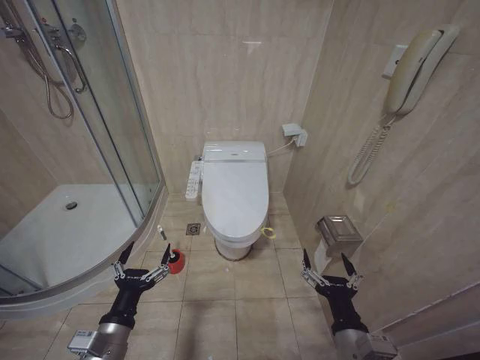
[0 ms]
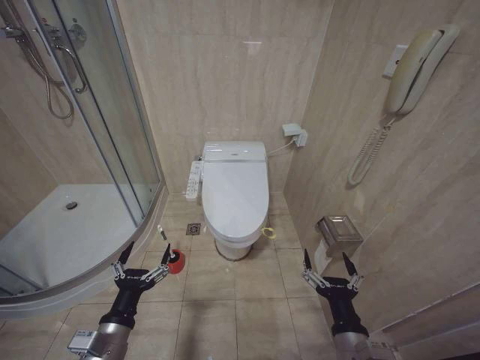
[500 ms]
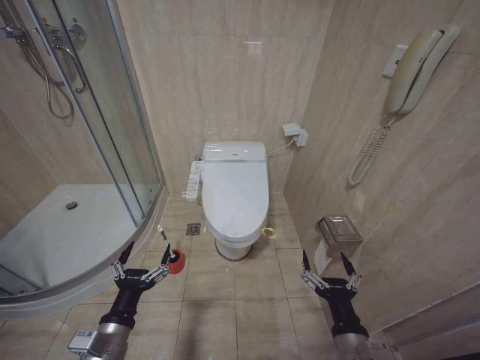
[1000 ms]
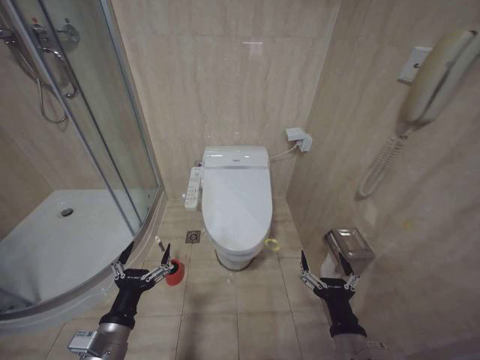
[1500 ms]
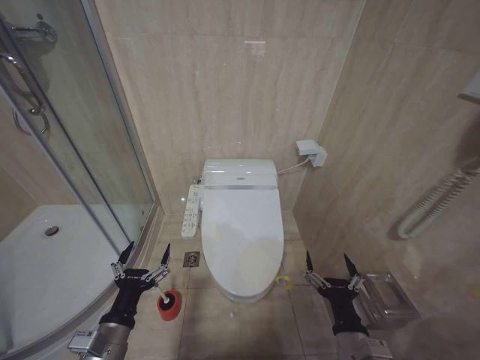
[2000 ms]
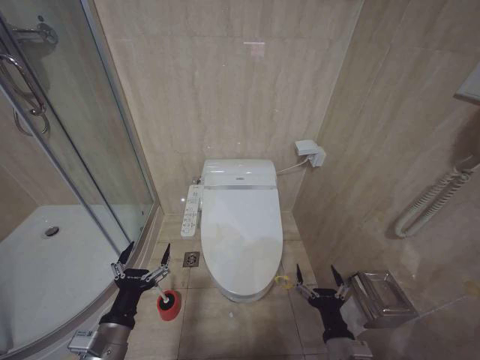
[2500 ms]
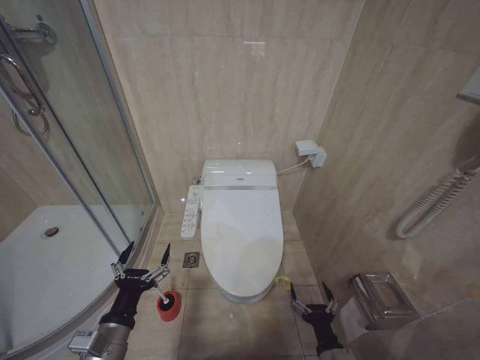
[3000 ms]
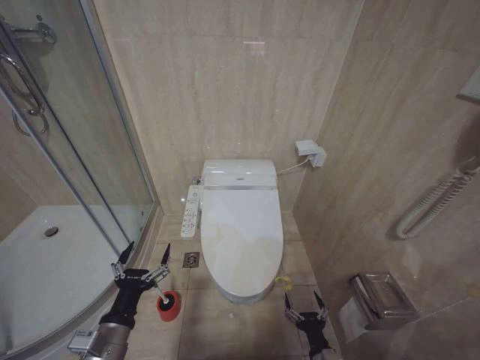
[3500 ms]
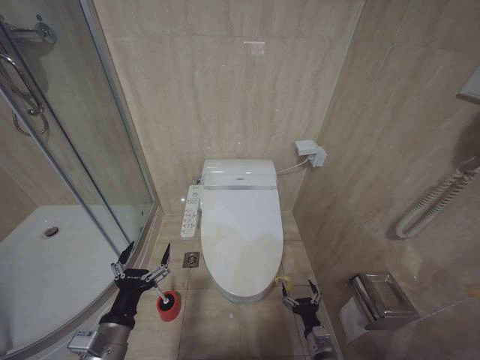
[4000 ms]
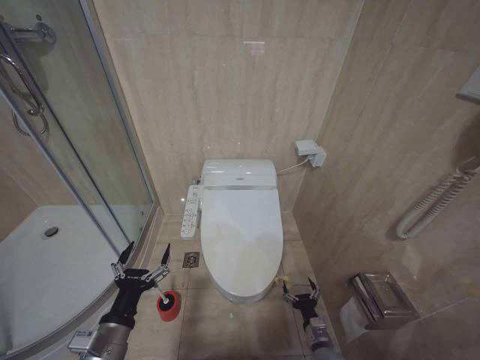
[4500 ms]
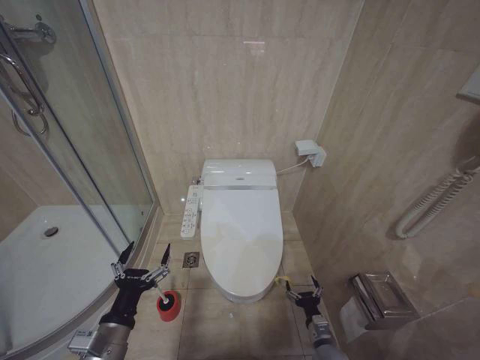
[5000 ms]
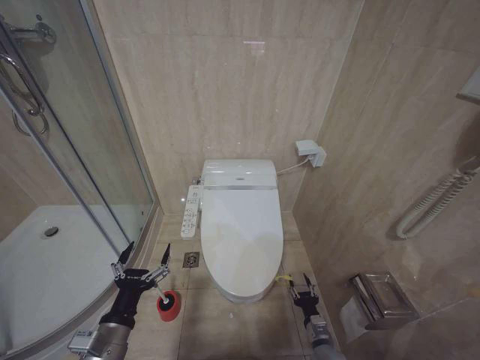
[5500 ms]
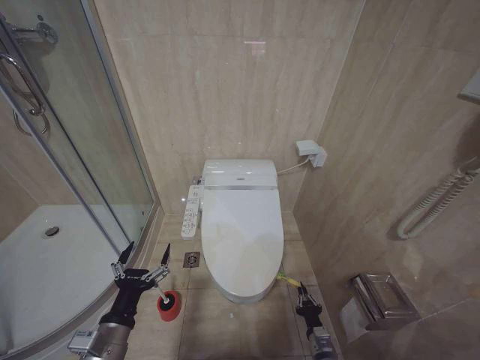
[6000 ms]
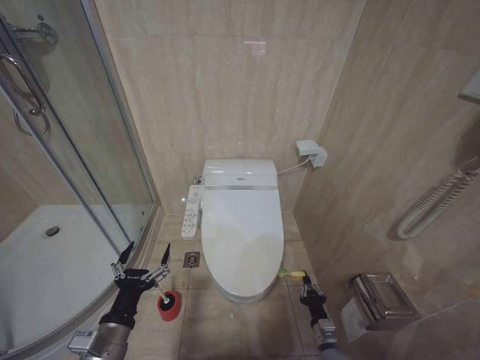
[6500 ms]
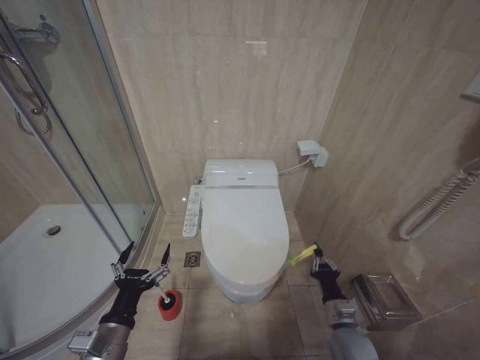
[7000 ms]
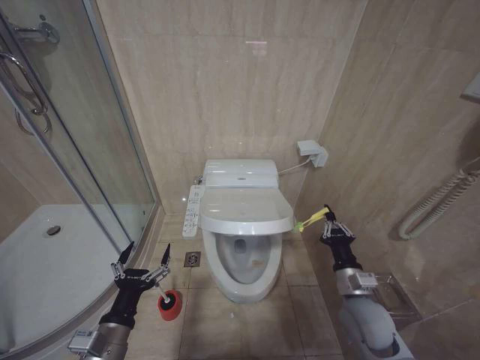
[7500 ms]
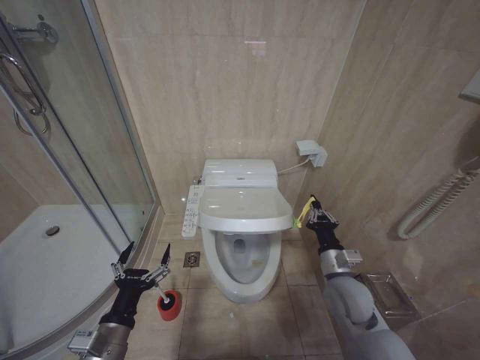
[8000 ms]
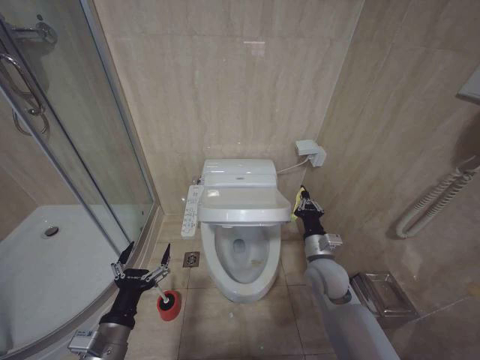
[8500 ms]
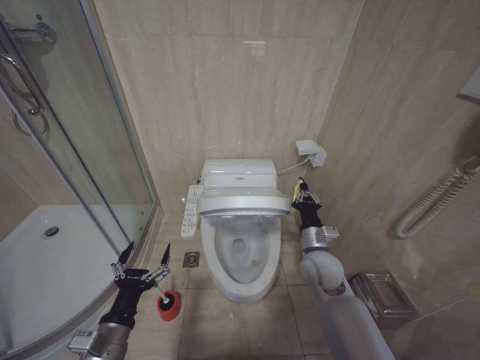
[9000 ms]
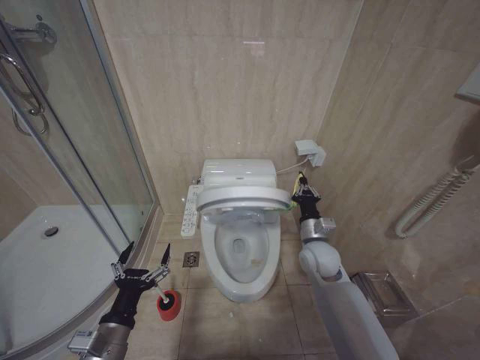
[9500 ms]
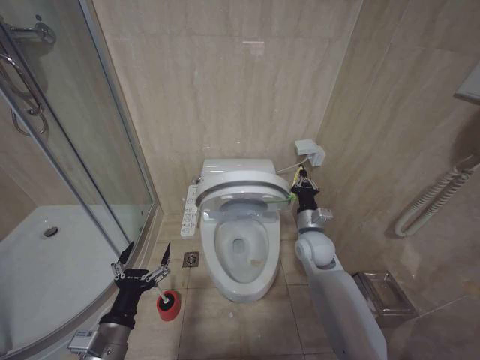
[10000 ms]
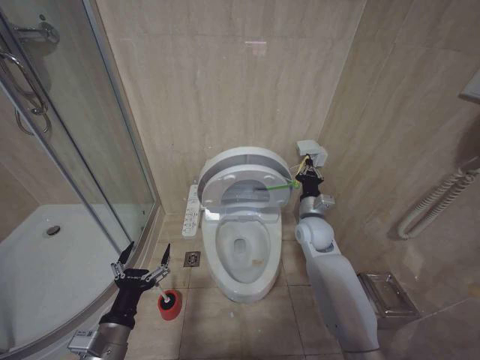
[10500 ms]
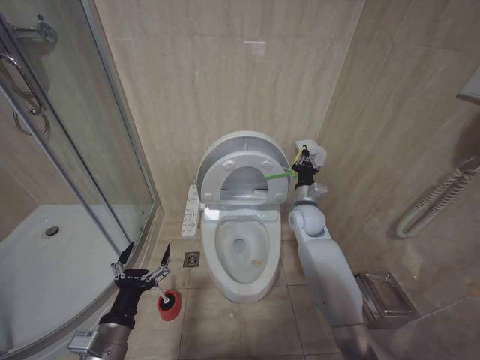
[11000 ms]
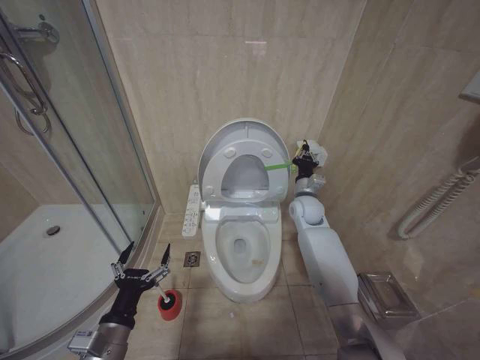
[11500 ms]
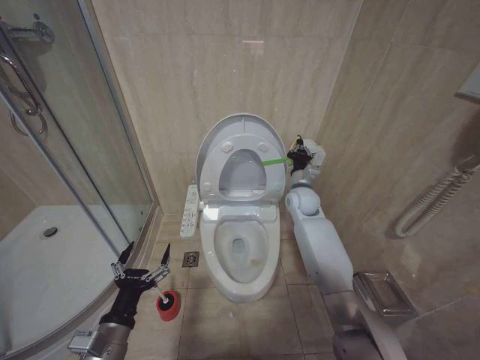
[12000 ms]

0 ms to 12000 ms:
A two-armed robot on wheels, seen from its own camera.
Task of the whole recording: Open the toilet lid, clean the toilet bowl with a toilet brush, close the toilet lid, and flush.
2000 ms to 4000 ms: The right gripper is displaced downward by about 20 cm.
6000 ms to 8000 ms: The right gripper heads upward, covering approximately 25 cm.
8000 ms to 10000 ms: The right gripper moves forward, approximately 10 cm.
10000 ms to 12000 ms: The right gripper goes about 15 cm forward and upward.

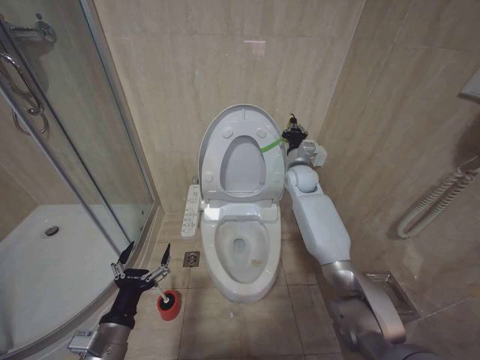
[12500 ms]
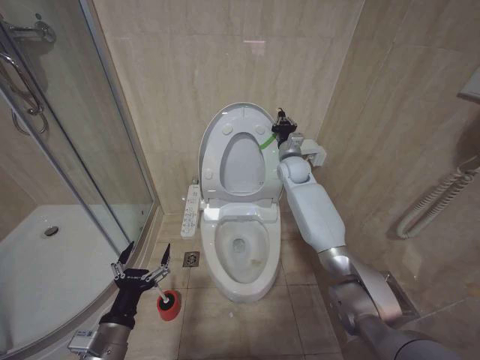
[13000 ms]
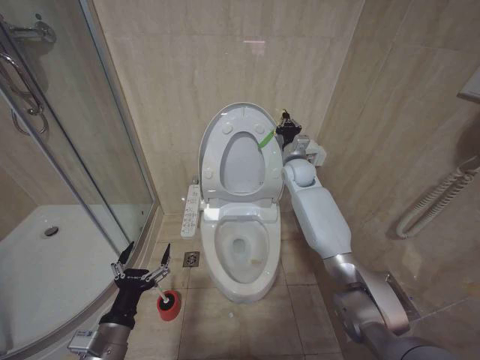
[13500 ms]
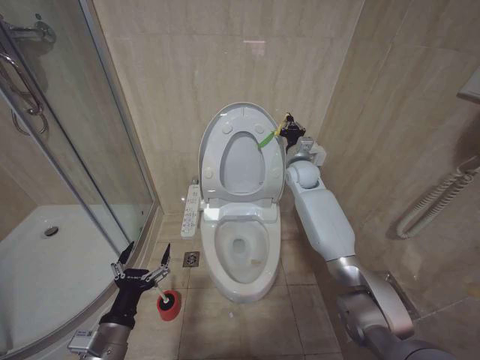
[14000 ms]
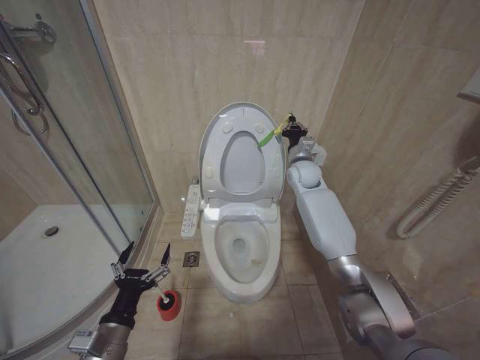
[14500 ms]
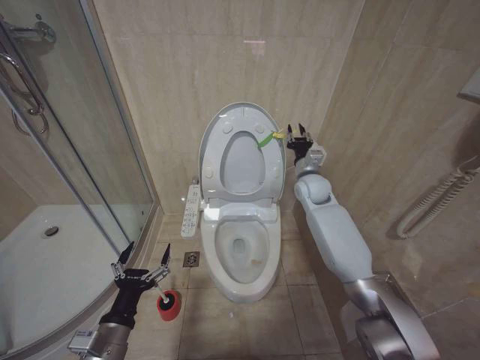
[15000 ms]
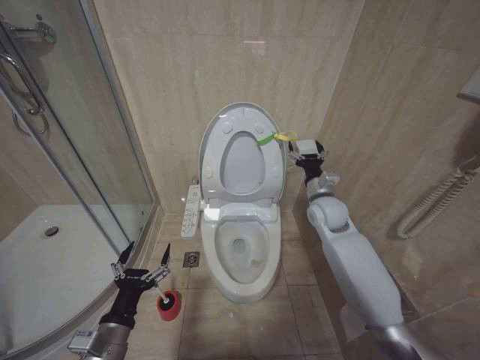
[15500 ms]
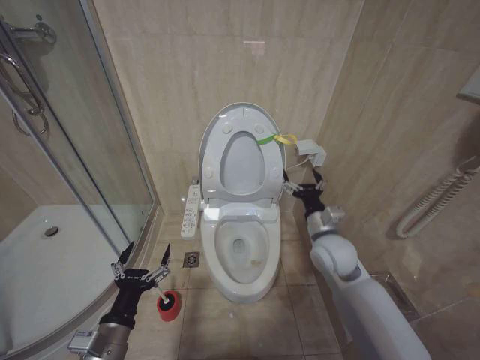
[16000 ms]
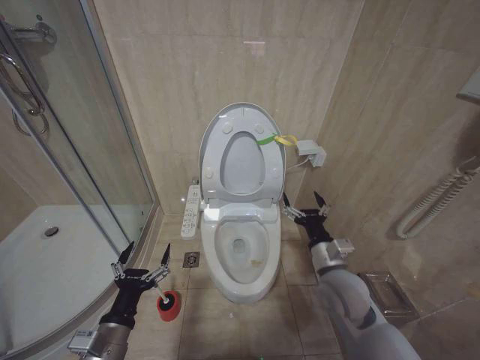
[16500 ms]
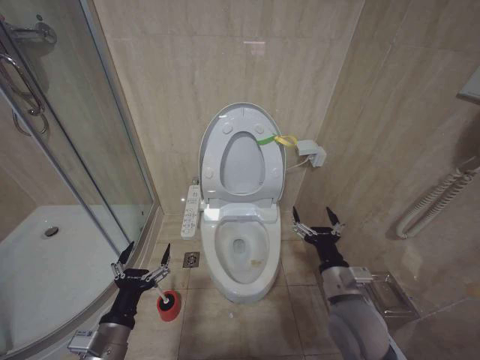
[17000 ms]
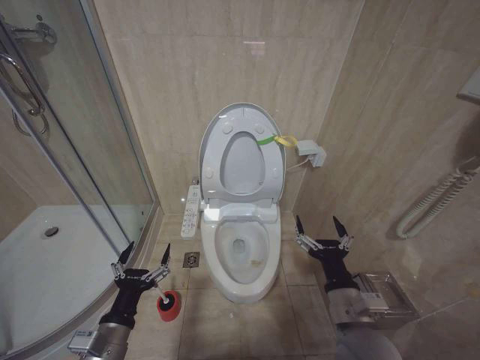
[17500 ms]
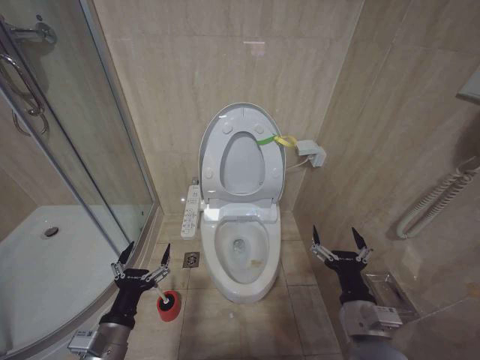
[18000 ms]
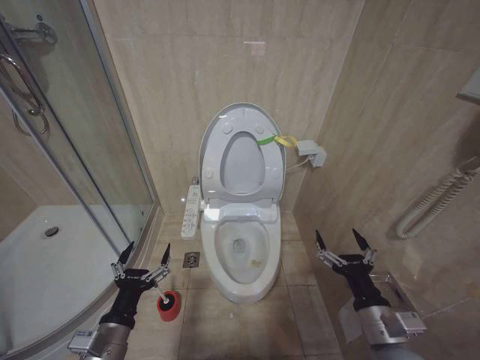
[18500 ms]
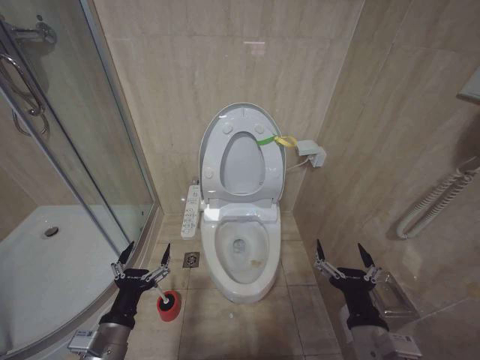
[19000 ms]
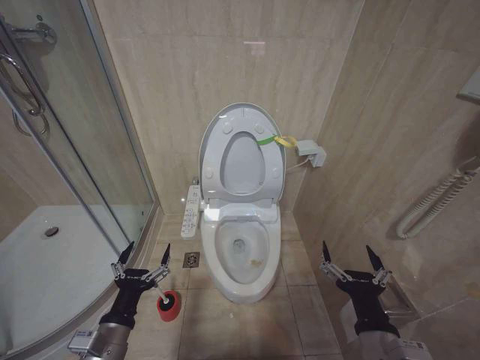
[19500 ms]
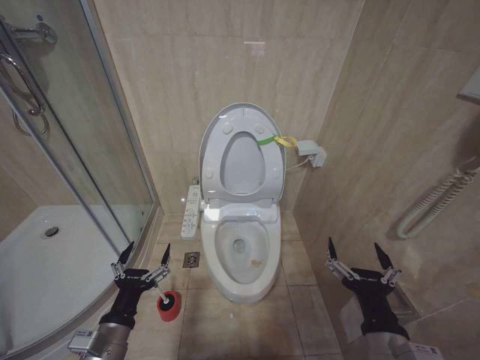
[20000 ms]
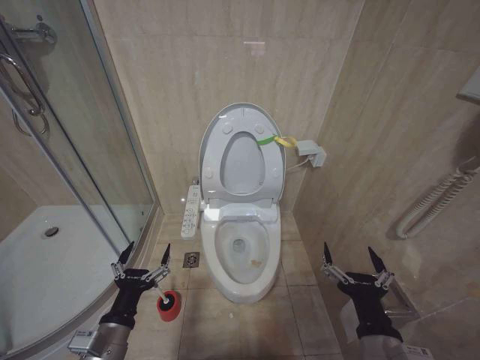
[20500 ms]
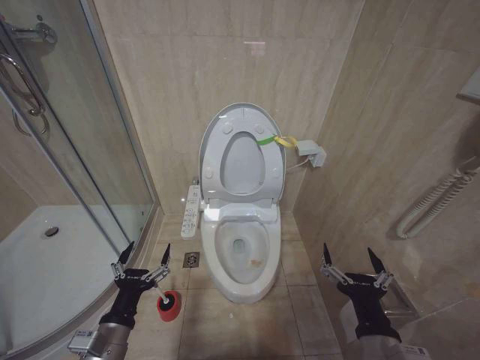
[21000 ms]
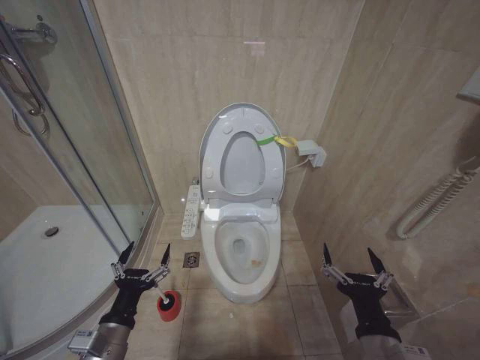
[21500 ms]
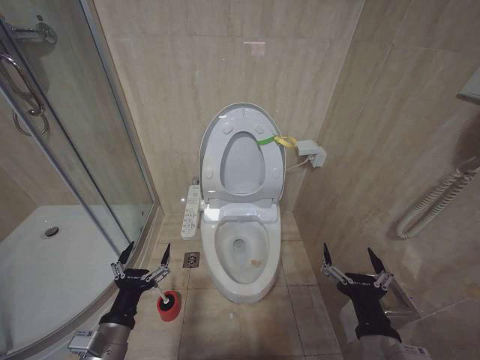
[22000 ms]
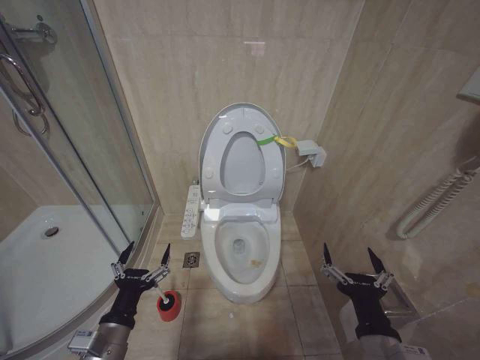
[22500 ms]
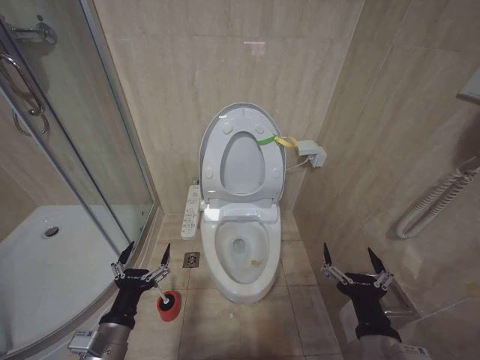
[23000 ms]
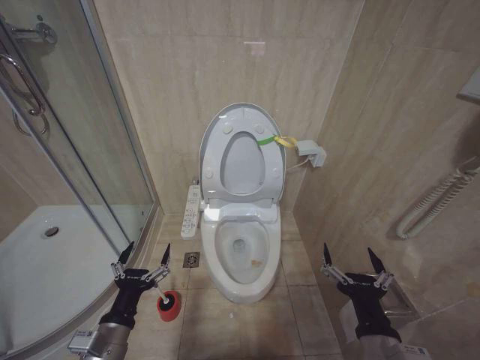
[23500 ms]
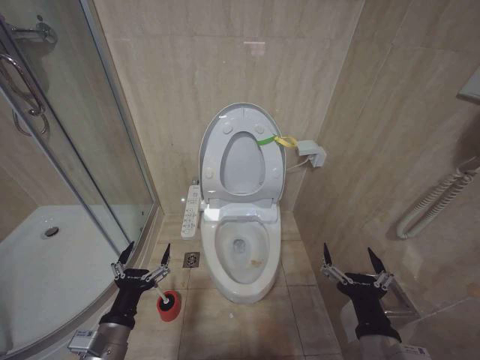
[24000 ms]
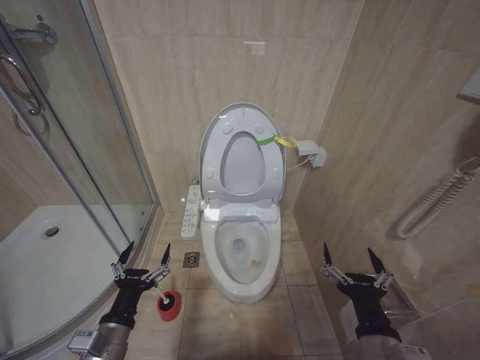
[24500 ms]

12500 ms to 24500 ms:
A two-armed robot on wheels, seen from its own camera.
Task of the whole recording: Open the toilet lid, clean the toilet bowl with a toilet brush, close the toilet lid, and flush.
12500 ms to 14500 ms: The grippers stay close to where they were, moving slightly.
14500 ms to 16500 ms: The right gripper is displaced backward and downward by approximately 30 cm, and opens.
16500 ms to 18500 ms: The right gripper is displaced backward by about 15 cm.
18500 ms to 20500 ms: The right gripper travels backward and to the left by about 10 cm.
20500 ms to 24500 ms: Both grippers stay about where they are.

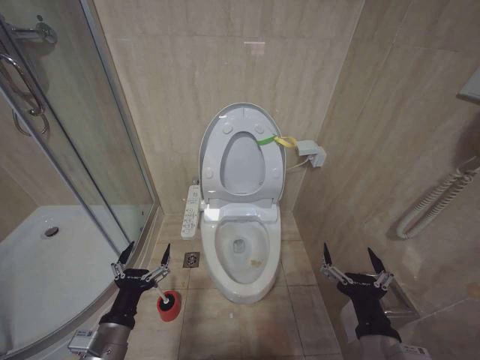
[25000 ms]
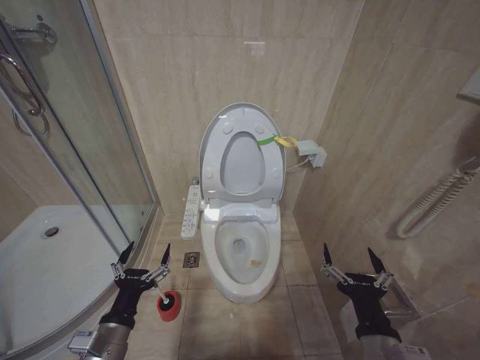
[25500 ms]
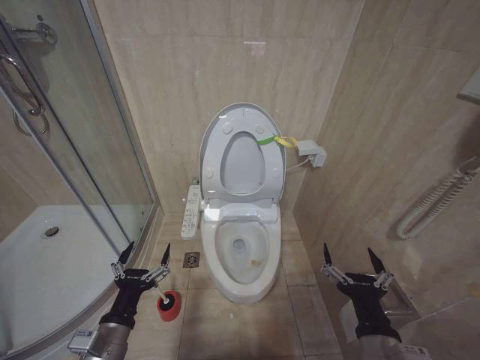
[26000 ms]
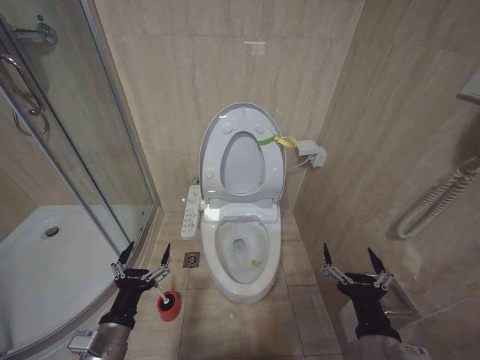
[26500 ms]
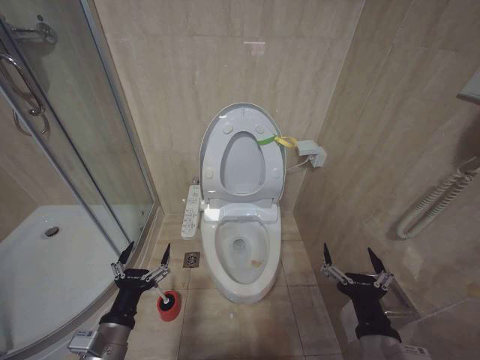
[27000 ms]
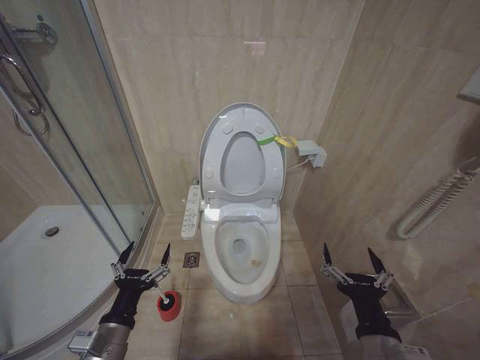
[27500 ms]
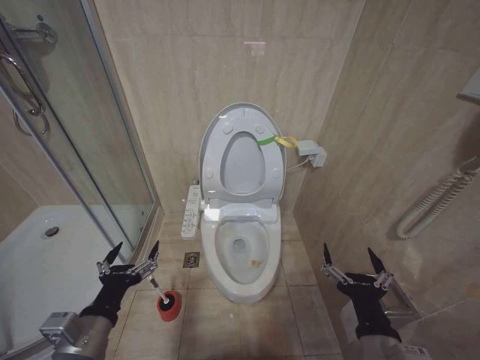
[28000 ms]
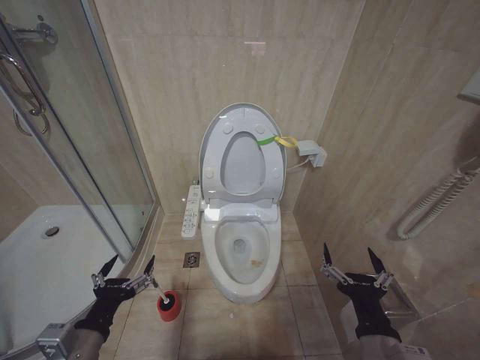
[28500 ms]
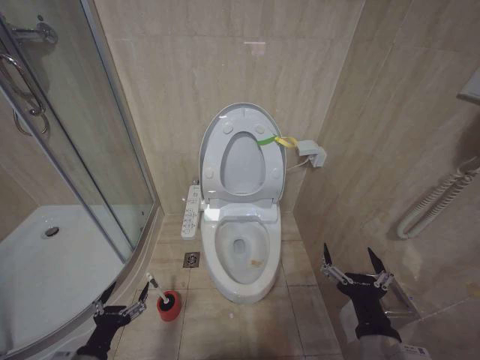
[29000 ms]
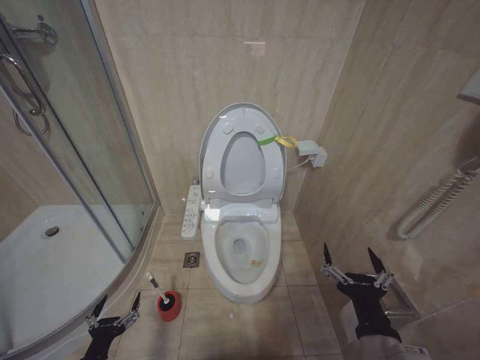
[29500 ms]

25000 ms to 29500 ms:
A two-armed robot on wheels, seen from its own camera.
Task of the whole recording: Open the toilet lid, clean the toilet bowl with a toilet brush, close the toilet lid, and flush.
25000 ms to 27000 ms: The two grippers keep their place.
27000 ms to 29500 ms: The left gripper heads downward and to the left, covering some 15 cm.
